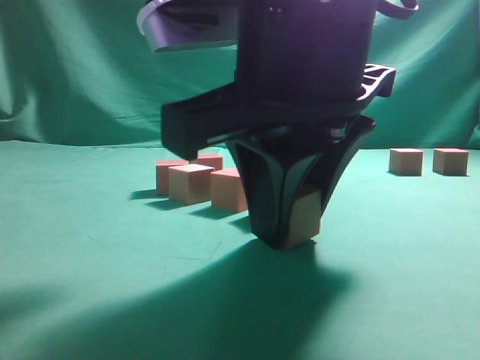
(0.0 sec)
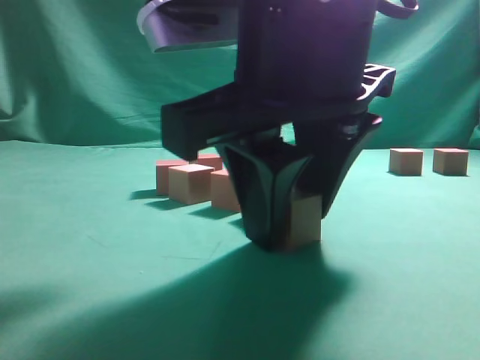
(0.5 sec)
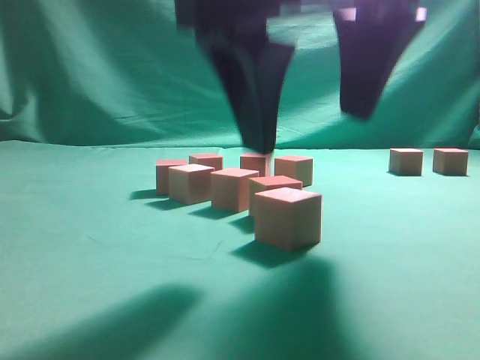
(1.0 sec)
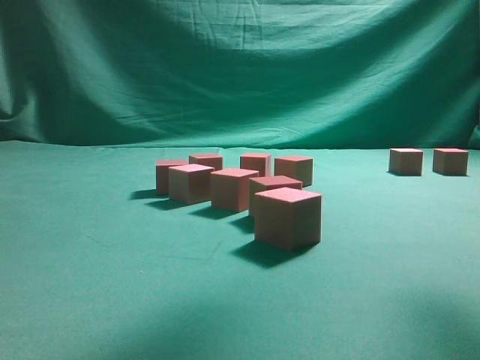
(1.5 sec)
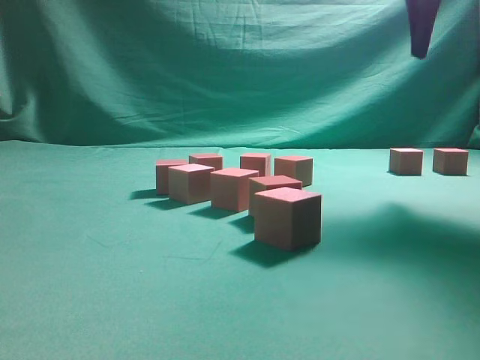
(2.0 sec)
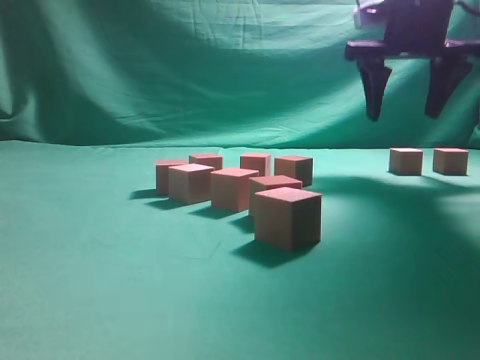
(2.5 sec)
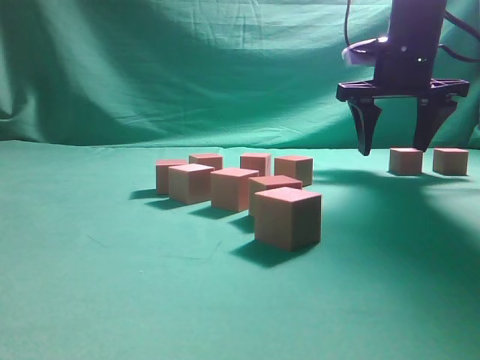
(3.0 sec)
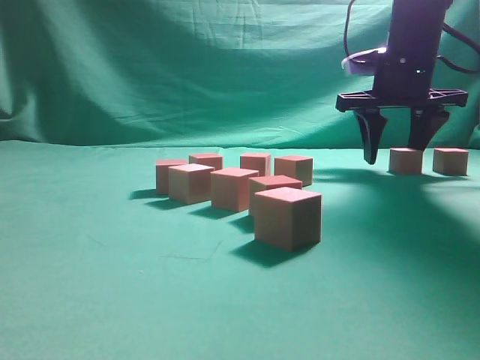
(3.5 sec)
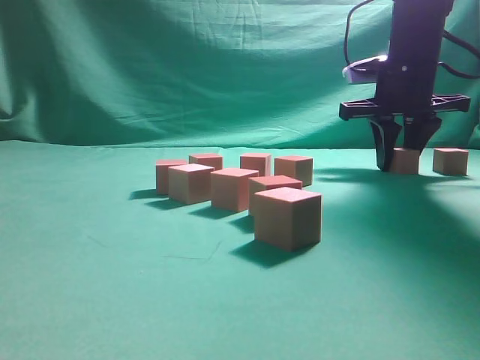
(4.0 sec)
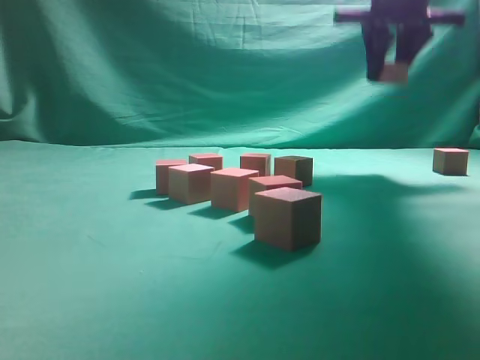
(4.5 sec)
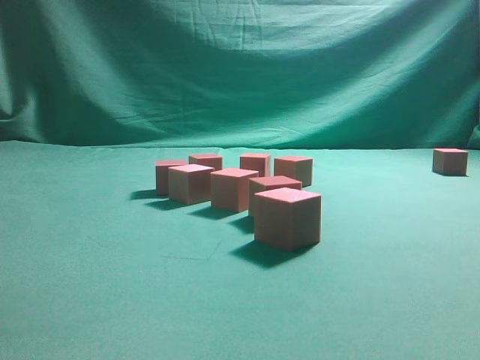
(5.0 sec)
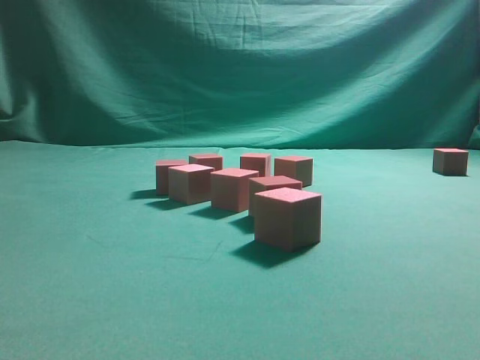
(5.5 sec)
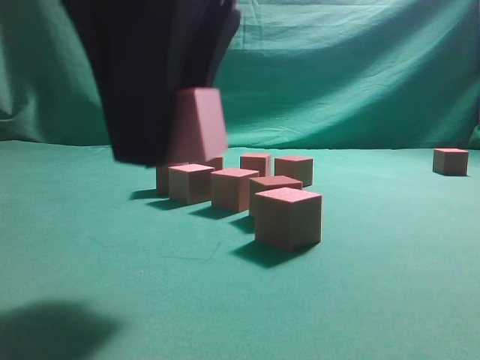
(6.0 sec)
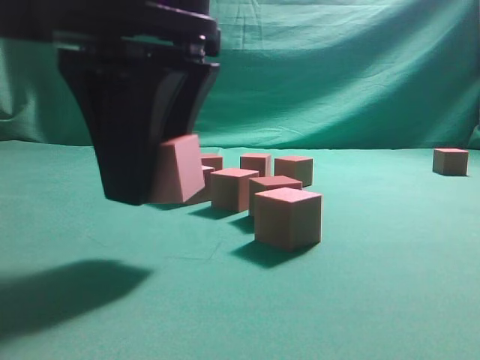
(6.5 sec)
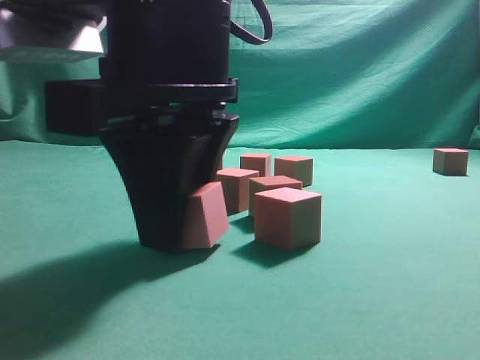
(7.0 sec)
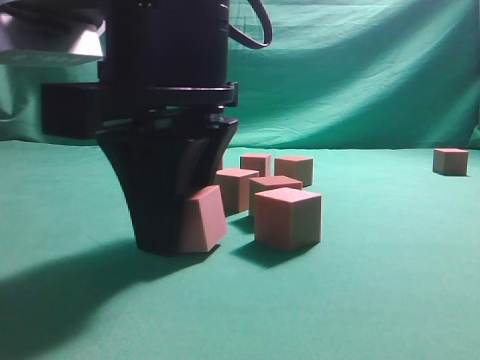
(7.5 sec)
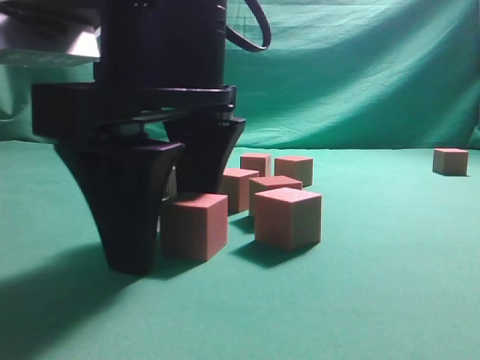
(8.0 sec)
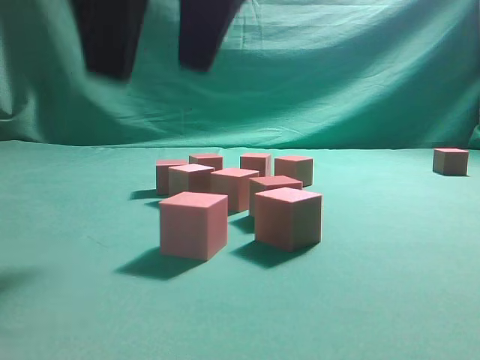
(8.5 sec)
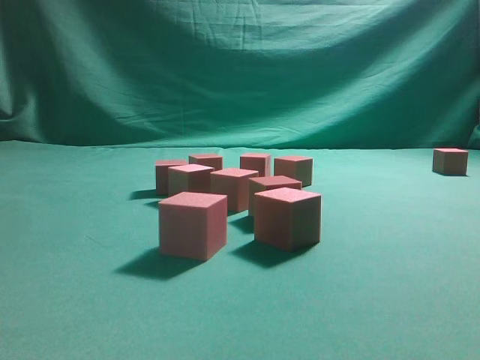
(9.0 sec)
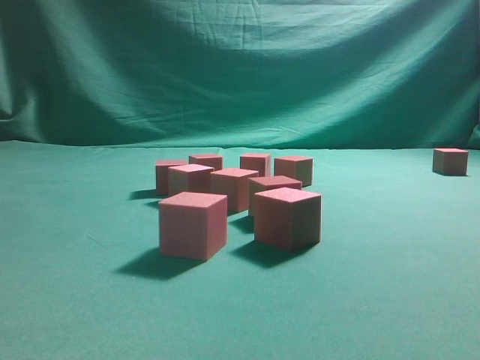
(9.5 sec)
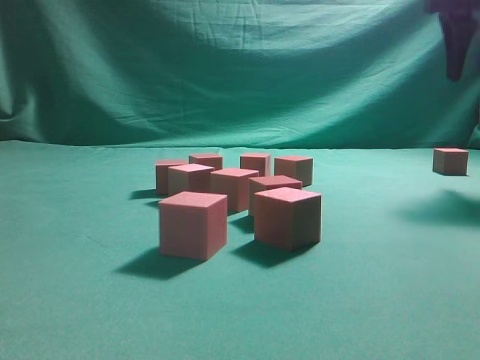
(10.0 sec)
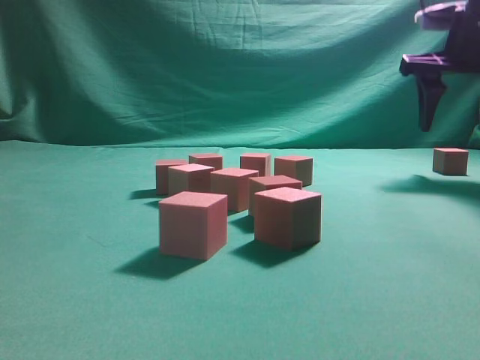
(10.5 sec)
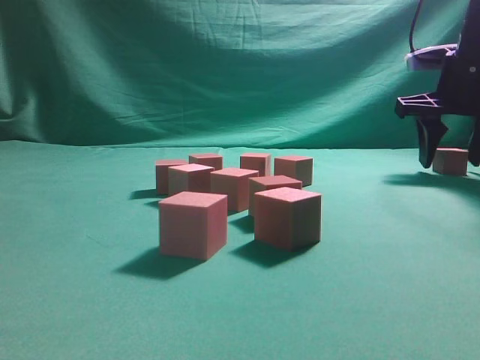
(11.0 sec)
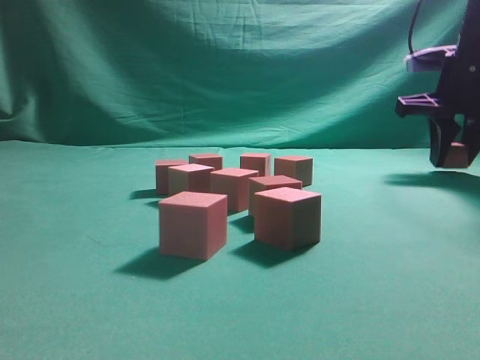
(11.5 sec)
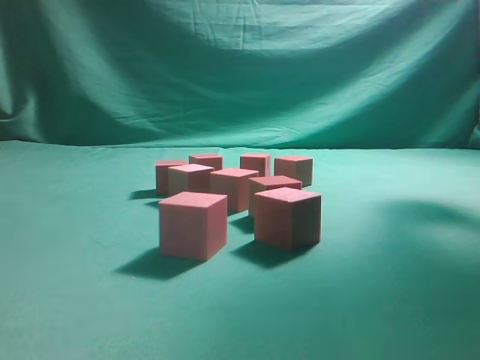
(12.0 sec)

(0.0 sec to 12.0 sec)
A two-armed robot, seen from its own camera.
Task of the whole recording: pick up the multiple cubes in two columns one by one and place them in another position on the table.
Step, 1.5 sec - 4.0 sec: Pick up the block on the table.
Step, 4.5 sec - 8.0 sec: Place the block at the correct position to assemble the letter S.
Step, 8.5 sec - 11.5 sec: Pick up the block on the table.
0.0 sec - 2.0 sec: The right gripper moves to the right, forward and upward, some 30 cm, and opens up.
2.0 sec - 4.0 sec: The right gripper is displaced downward and forward by roughly 15 cm, and closes its fingers.
4.0 sec - 6.0 sec: The right gripper heads backward and to the left, covering some 35 cm.
6.0 sec - 8.0 sec: The right gripper goes approximately 5 cm downward, and opens.
8.0 sec - 10.0 sec: The right gripper goes about 35 cm to the right and forward.
10.0 sec - 12.0 sec: The right gripper travels upward by roughly 10 cm, and closes up.

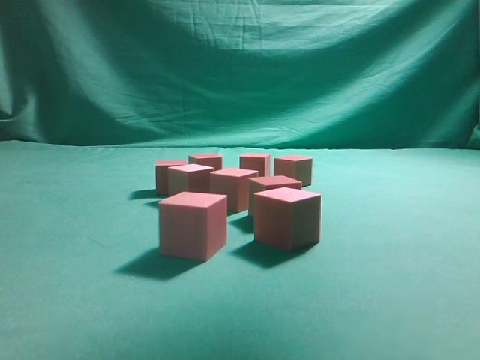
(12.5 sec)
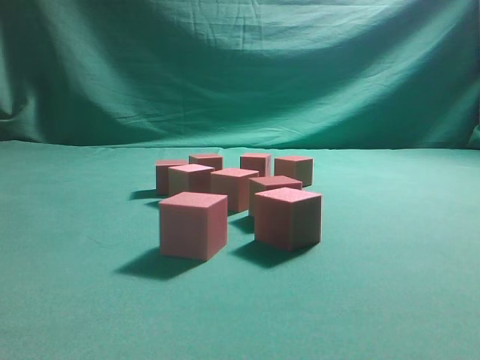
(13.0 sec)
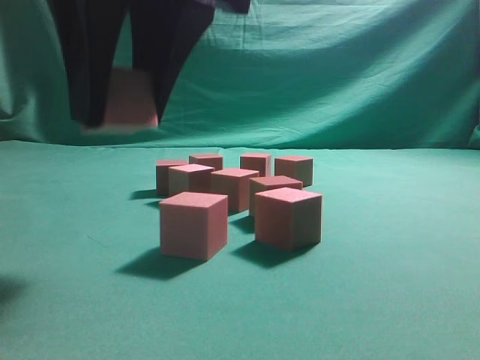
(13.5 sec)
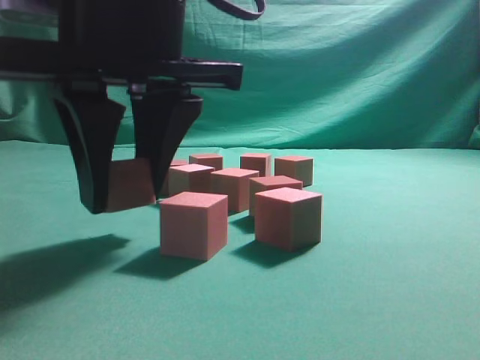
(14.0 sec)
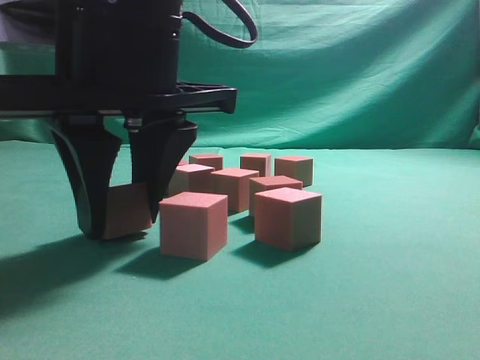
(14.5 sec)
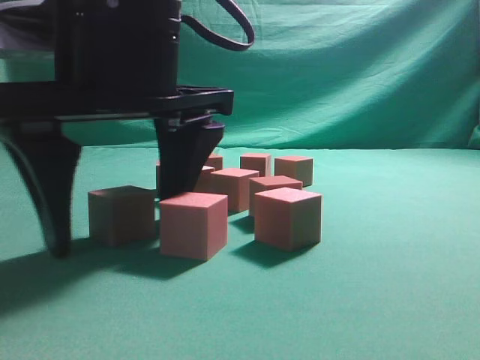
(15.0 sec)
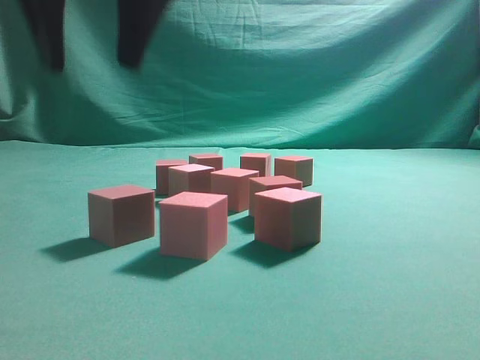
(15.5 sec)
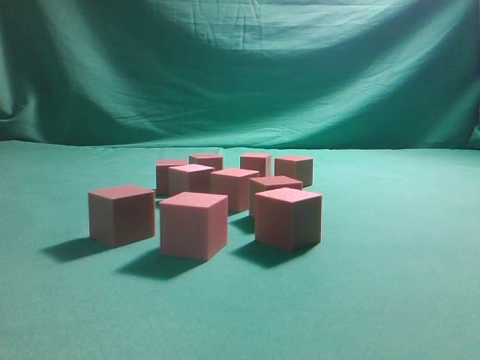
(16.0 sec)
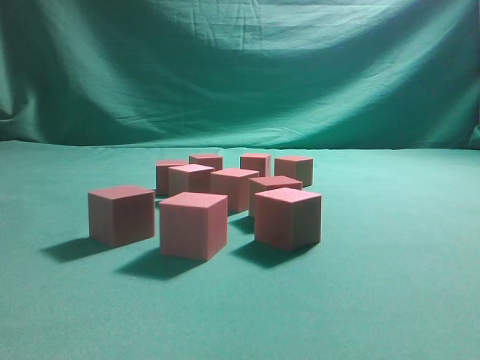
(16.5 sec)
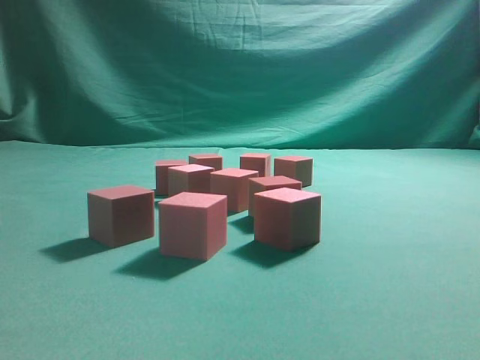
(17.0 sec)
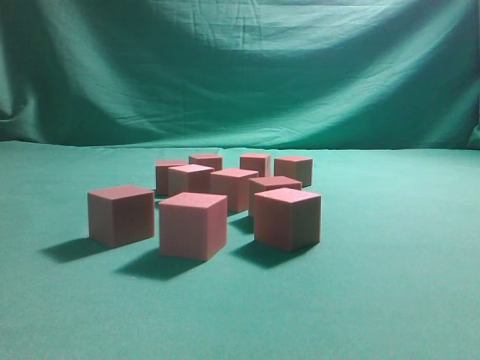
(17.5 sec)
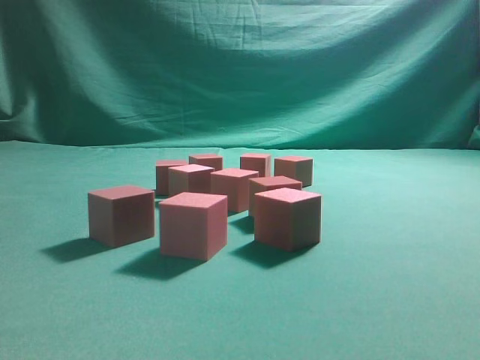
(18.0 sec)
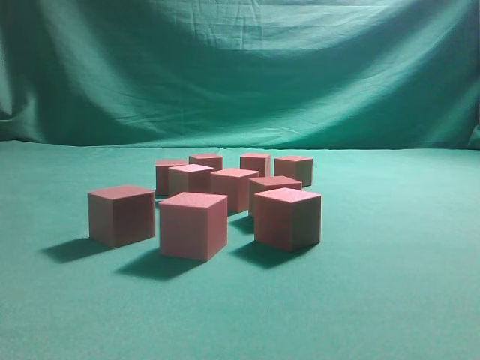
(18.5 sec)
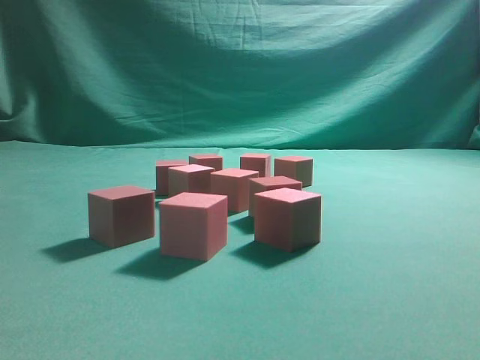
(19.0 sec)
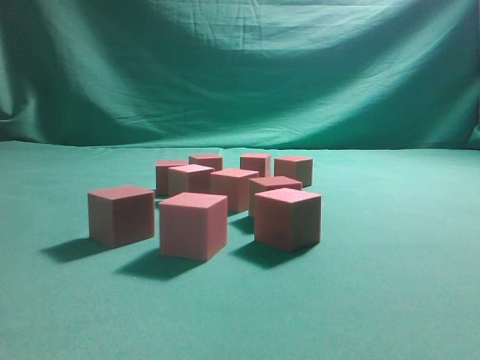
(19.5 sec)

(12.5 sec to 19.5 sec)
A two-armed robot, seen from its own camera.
Task of the whole recording: pick up the multiple cubes in two columns one by one and place them in another position on the table.
Step, 12.5 sec - 15.0 sec: Place the block at the correct position to assemble the letter S.
12.5 sec - 14.5 sec: The right gripper heads to the left and downward, covering approximately 35 cm.
14.5 sec - 16.0 sec: The right gripper moves upward, about 30 cm, and closes.
